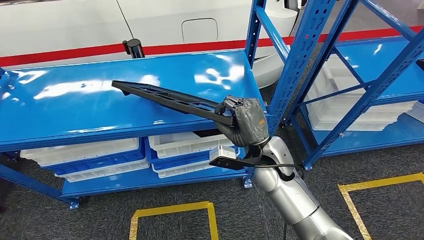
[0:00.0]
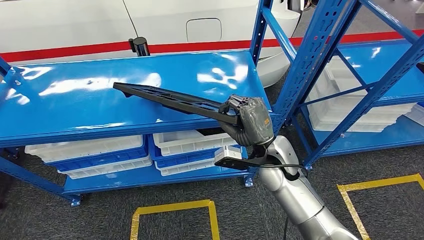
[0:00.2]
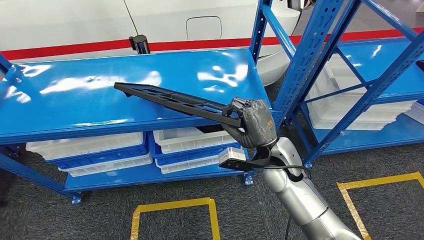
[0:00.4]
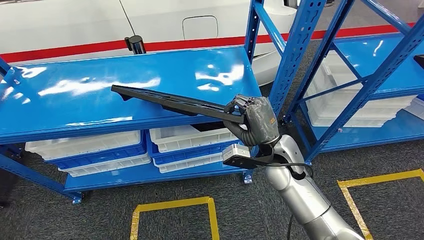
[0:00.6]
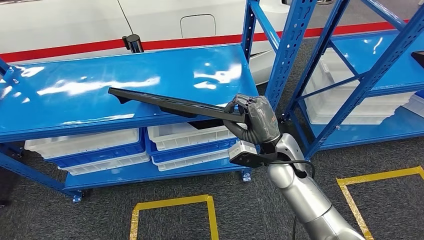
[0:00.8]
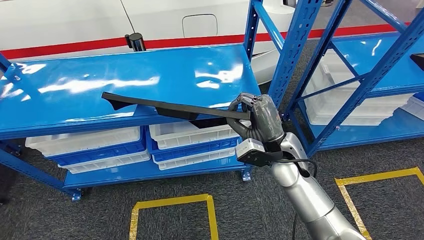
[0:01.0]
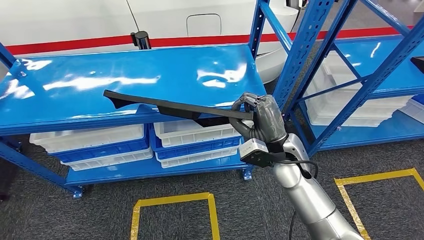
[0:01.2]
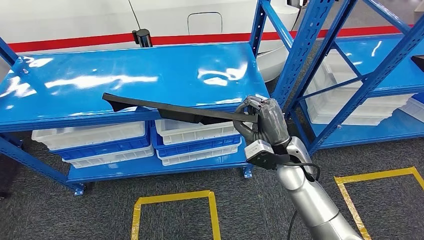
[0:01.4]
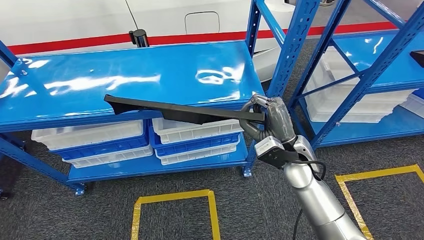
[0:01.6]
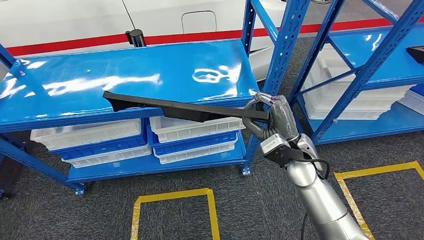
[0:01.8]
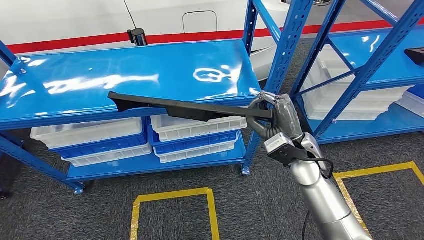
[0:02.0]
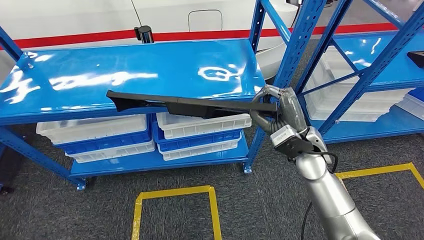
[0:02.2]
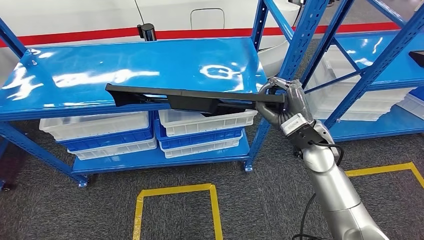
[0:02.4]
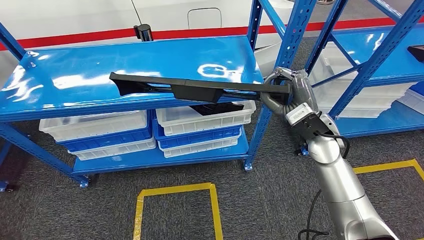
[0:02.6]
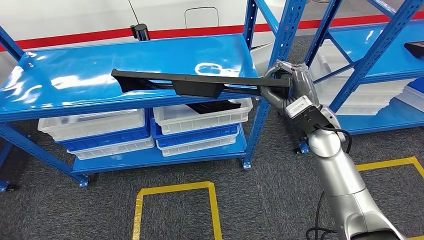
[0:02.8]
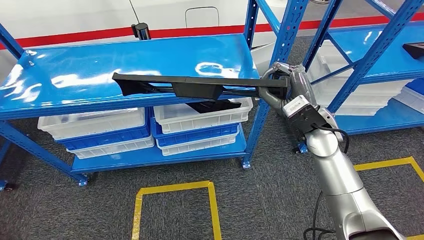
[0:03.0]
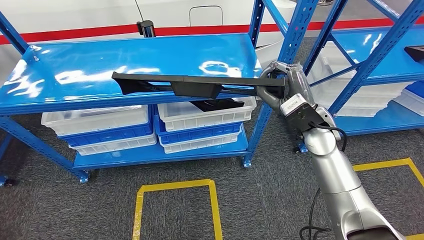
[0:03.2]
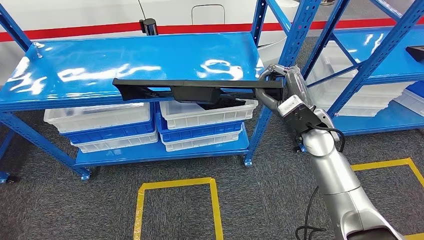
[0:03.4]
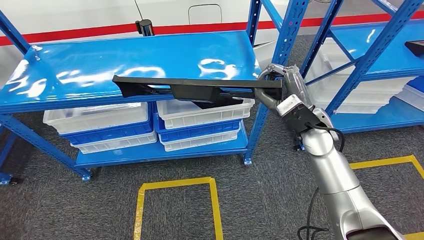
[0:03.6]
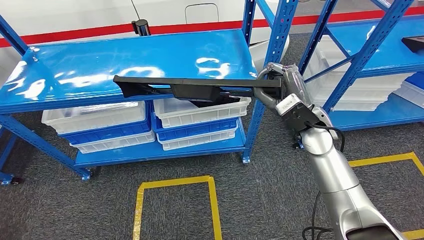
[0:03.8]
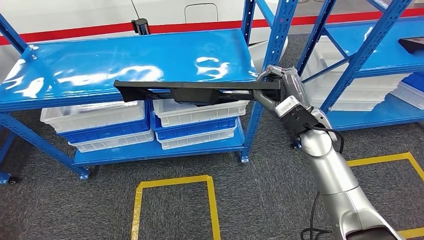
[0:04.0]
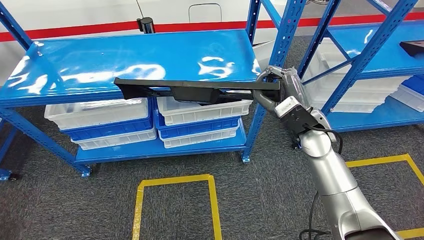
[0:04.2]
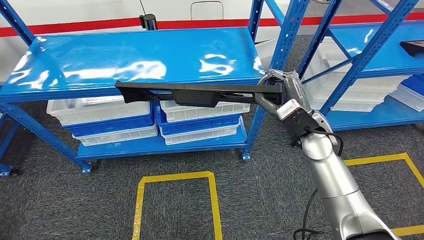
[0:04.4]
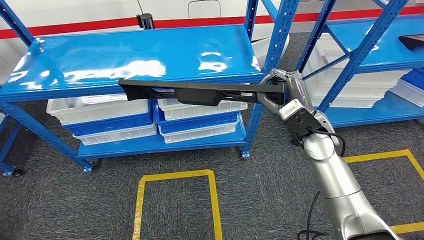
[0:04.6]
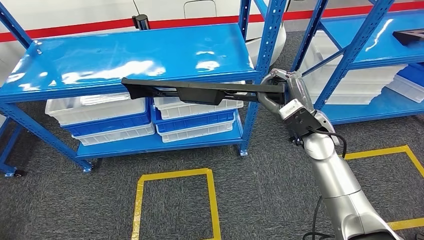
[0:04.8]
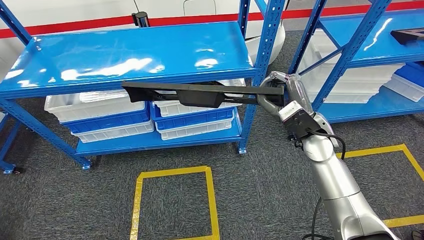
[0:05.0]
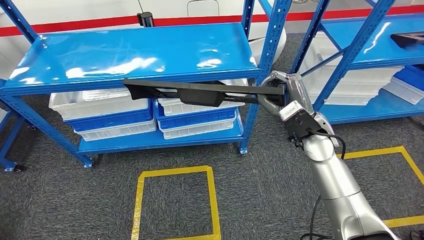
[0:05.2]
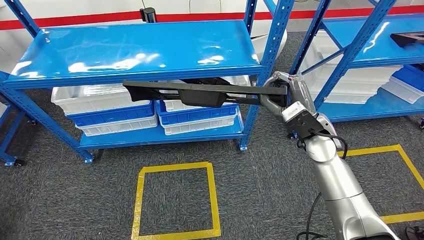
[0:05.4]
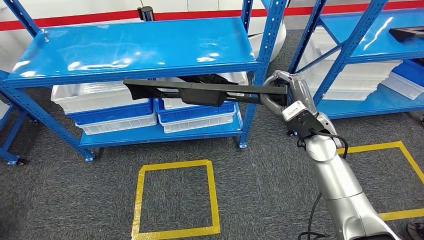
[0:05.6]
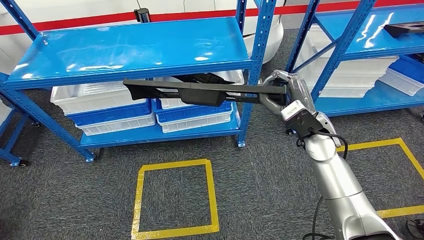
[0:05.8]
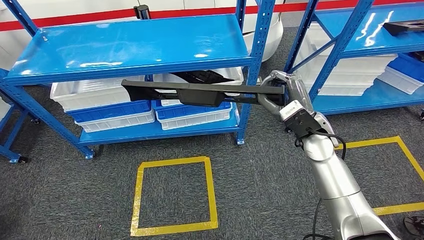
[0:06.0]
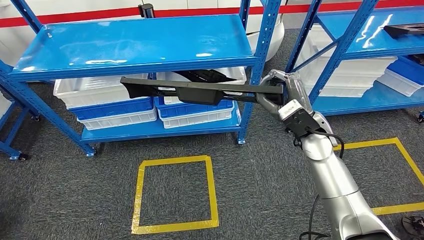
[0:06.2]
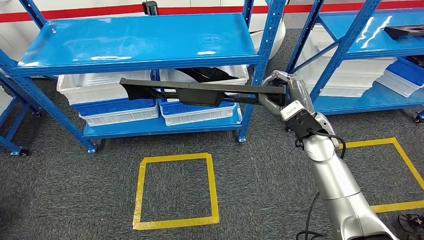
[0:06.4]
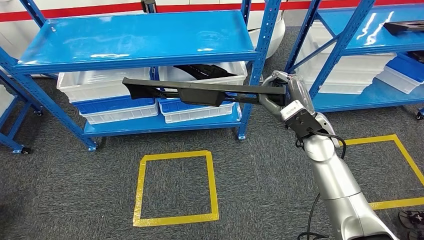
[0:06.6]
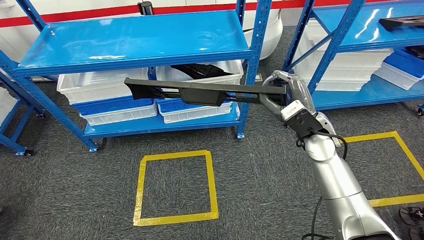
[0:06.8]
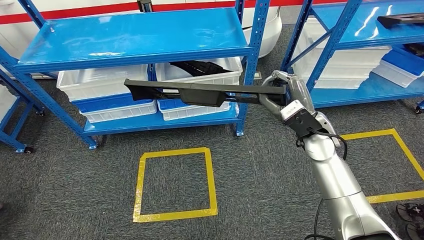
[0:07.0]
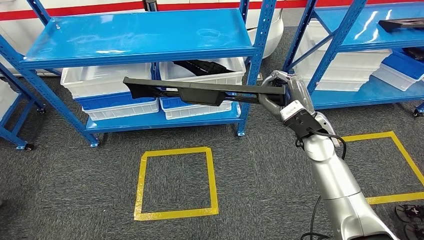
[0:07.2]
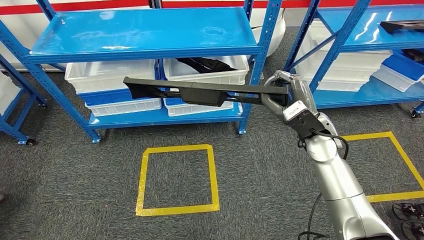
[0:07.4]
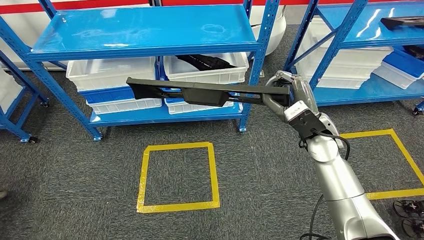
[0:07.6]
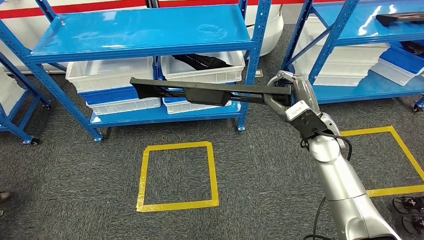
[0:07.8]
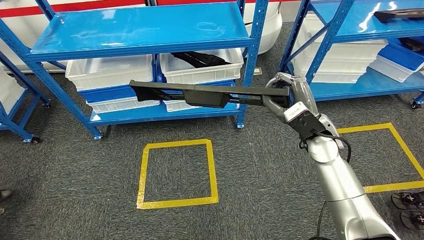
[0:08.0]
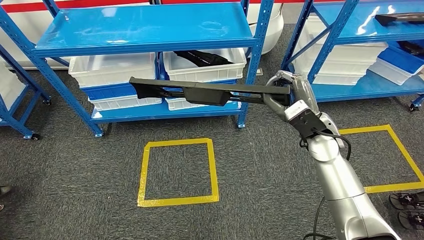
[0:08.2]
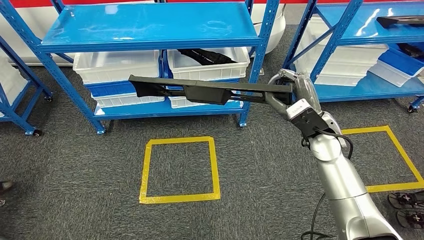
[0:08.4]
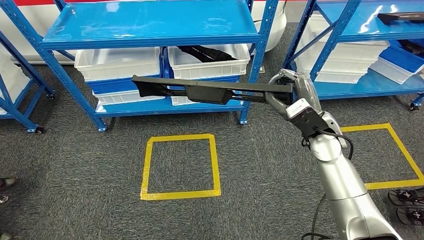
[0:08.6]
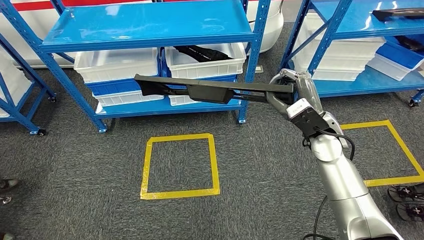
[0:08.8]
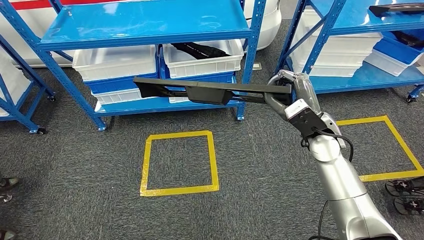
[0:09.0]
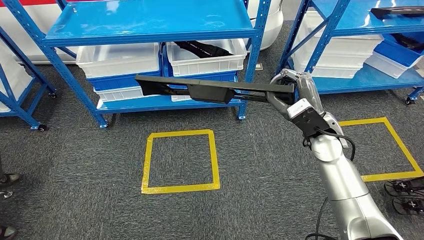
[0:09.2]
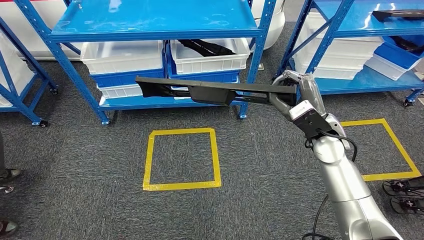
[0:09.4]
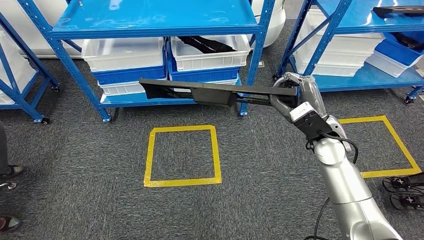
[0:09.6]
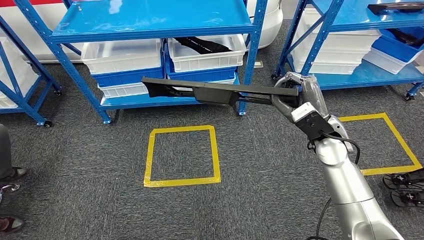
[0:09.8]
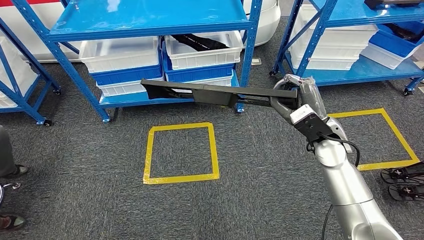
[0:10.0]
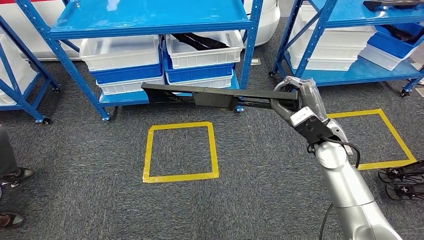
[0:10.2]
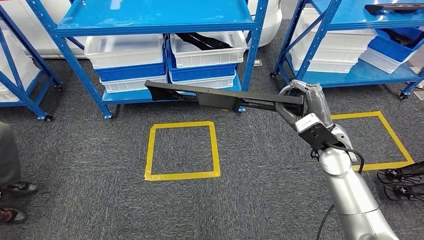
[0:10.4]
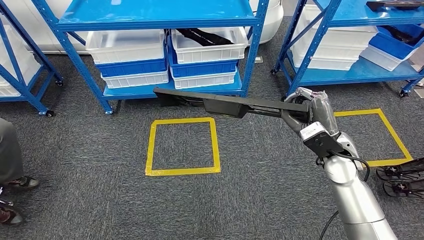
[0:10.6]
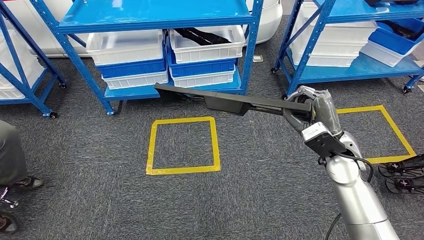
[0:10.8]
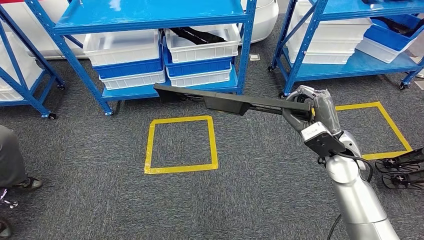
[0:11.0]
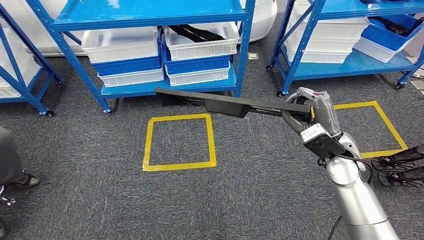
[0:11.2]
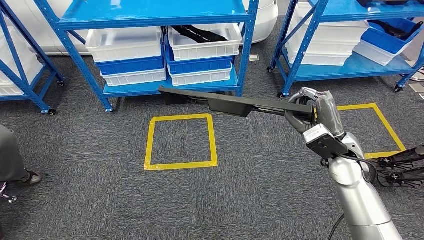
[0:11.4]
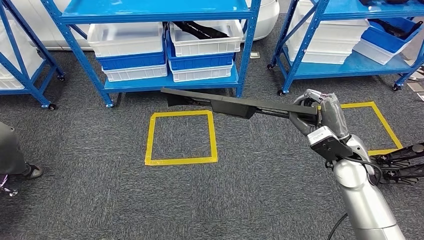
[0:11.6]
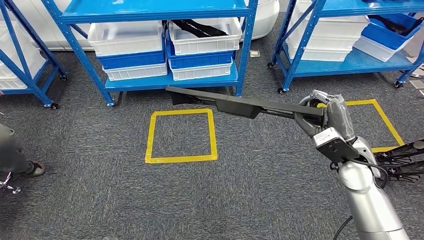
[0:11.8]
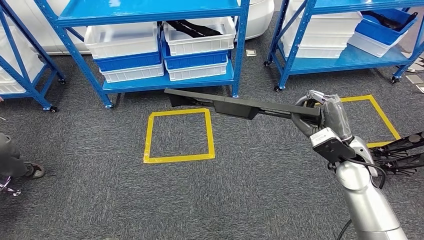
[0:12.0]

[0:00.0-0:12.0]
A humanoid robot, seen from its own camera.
Step, 0:00.0 to 0:03.0: Pick up the large material from the shelf.

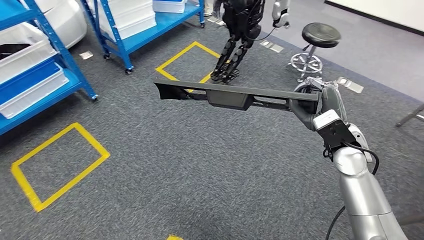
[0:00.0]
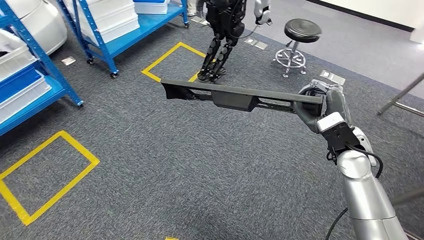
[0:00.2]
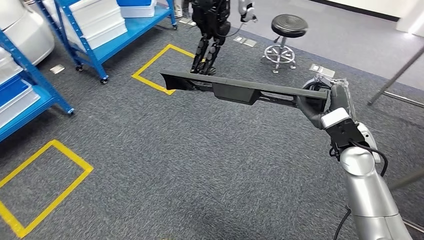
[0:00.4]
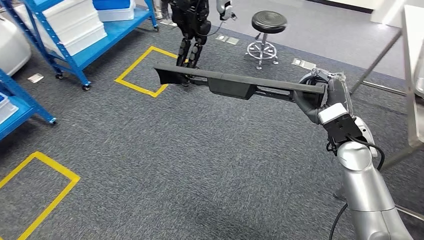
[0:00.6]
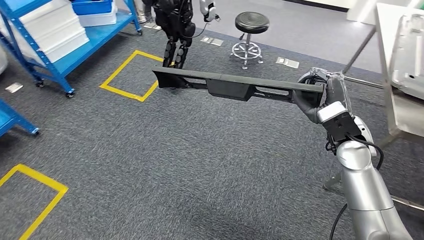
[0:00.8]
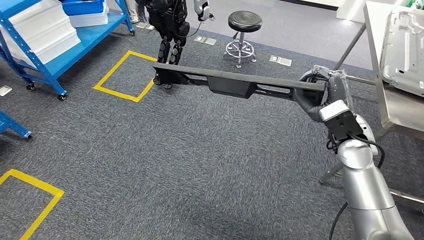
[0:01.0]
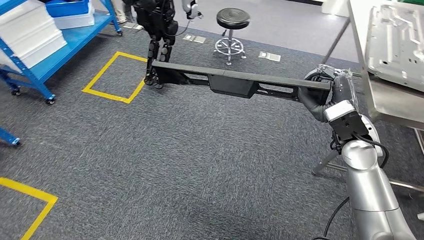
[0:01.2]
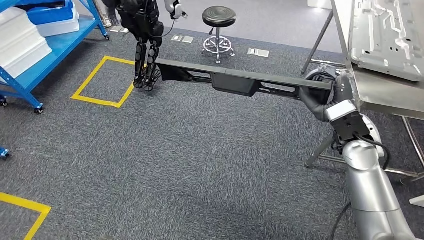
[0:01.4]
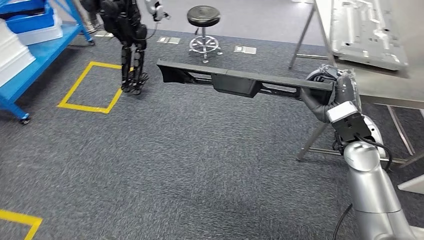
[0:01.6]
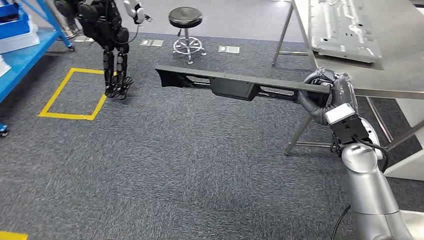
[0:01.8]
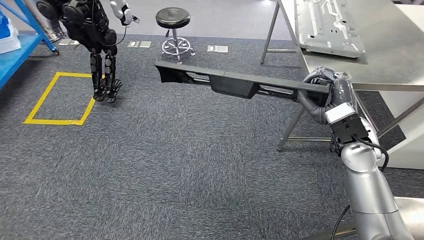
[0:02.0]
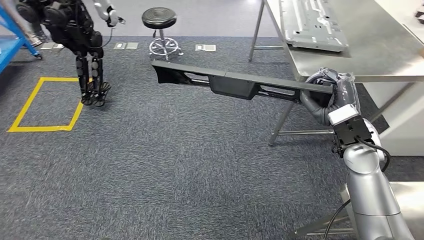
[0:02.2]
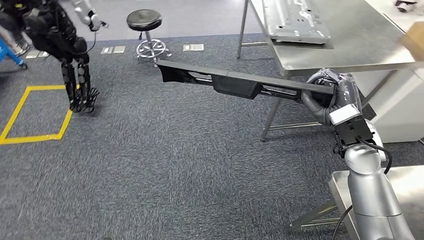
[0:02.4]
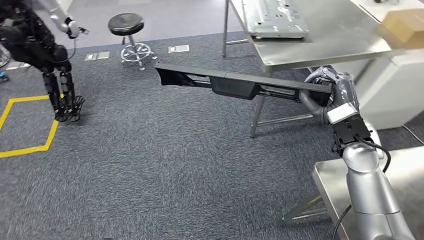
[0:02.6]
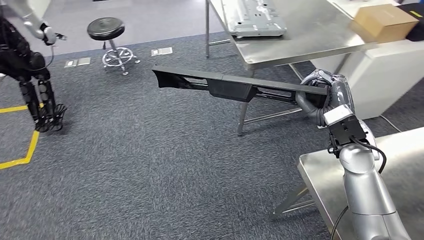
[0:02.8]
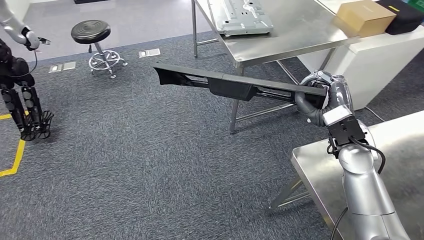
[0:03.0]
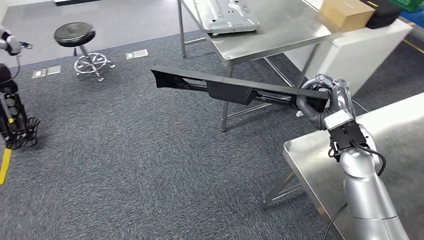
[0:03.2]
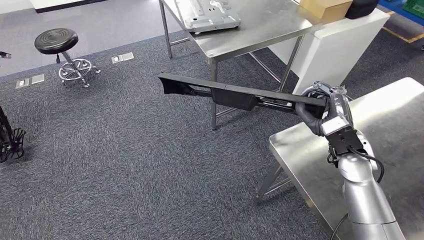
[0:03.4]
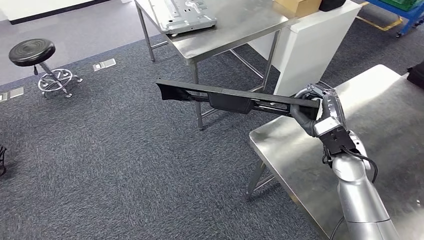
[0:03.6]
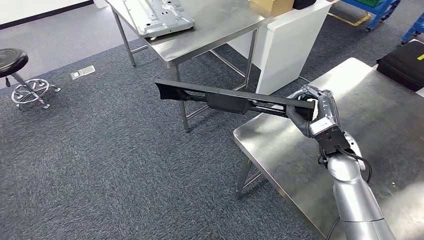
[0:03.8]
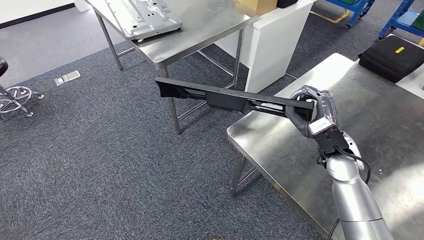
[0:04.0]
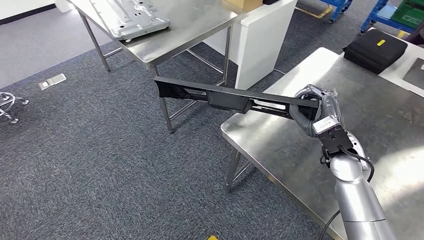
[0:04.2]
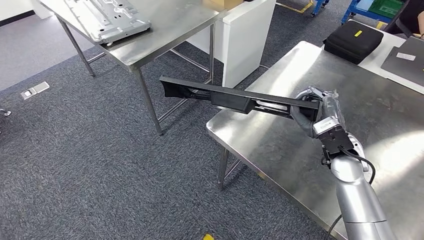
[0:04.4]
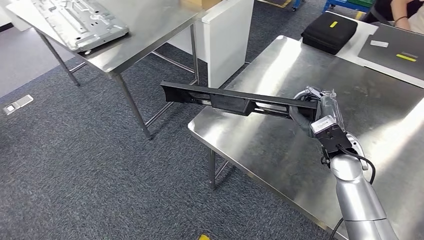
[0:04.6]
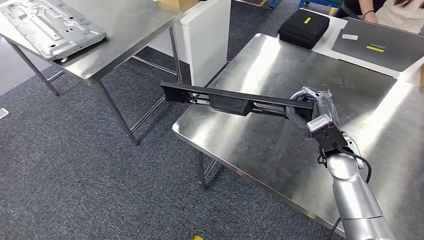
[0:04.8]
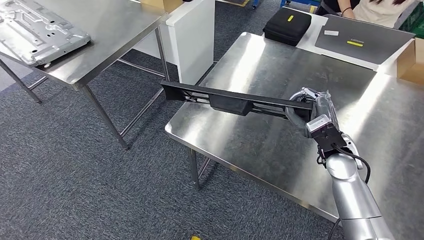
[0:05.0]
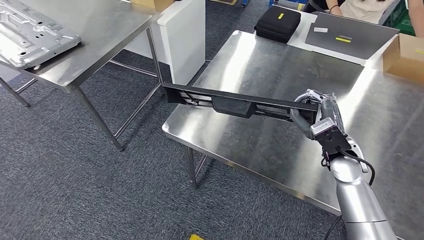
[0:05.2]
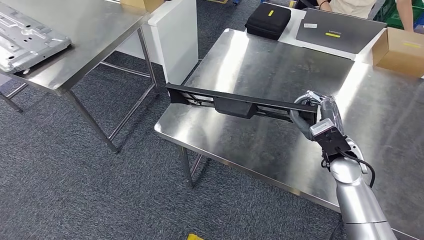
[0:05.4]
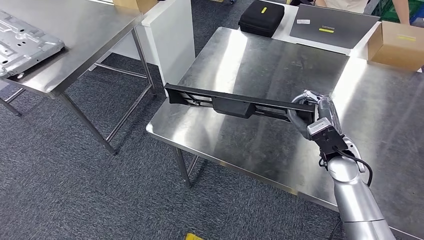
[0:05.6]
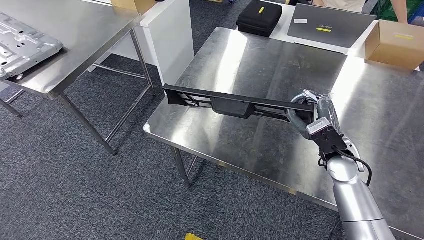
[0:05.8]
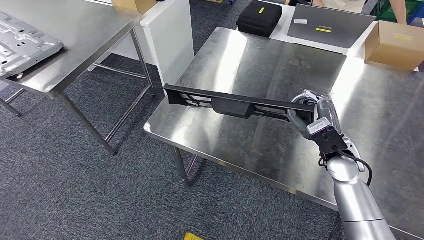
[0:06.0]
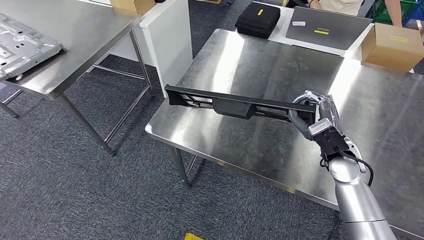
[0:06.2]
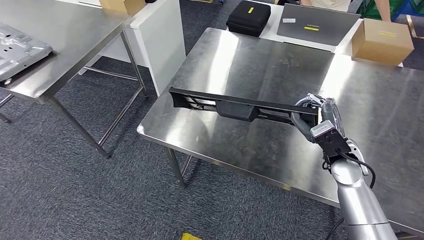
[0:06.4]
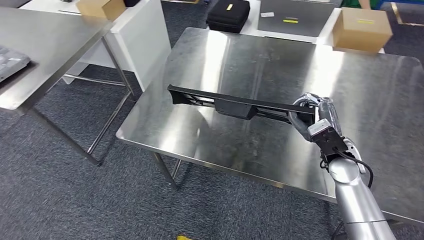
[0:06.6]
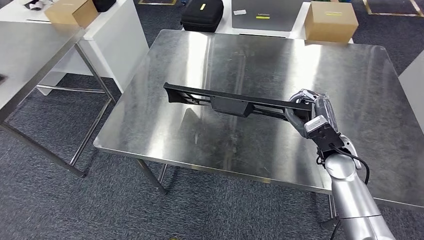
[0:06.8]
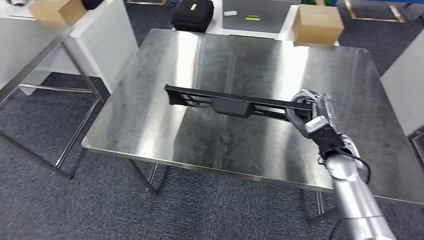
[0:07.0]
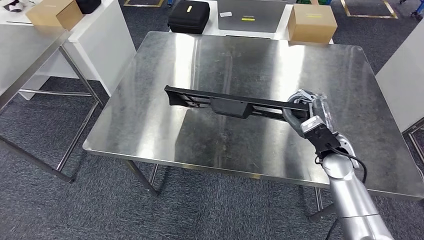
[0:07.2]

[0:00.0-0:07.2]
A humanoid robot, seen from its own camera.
Step, 0:00.0 to 0:02.8: Move the large material to the workbench.
